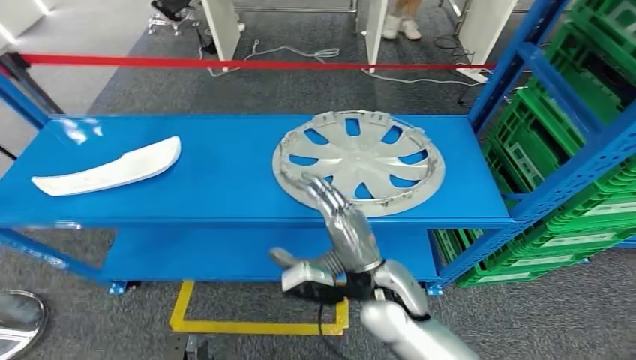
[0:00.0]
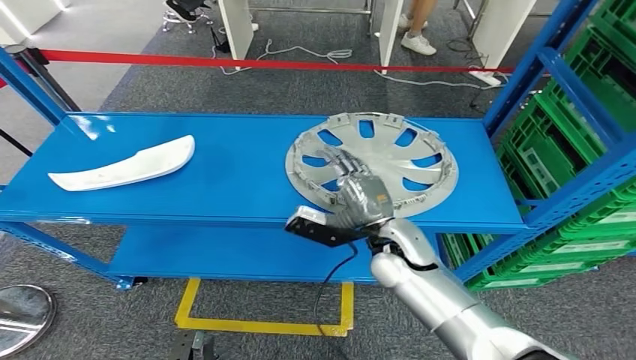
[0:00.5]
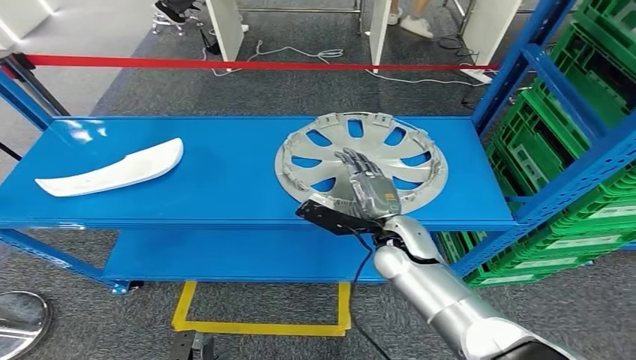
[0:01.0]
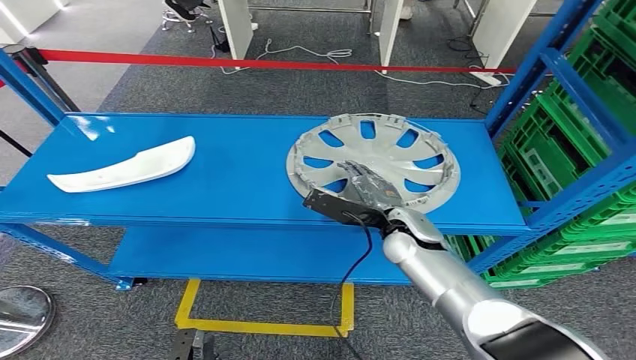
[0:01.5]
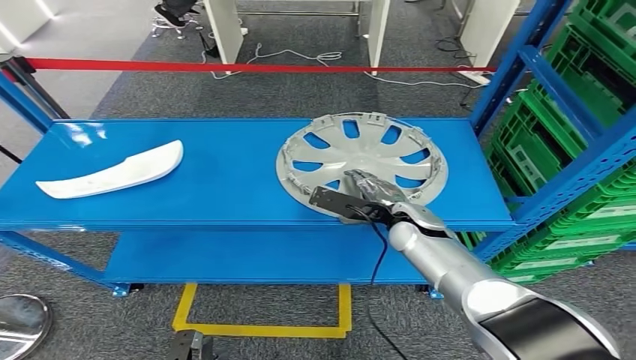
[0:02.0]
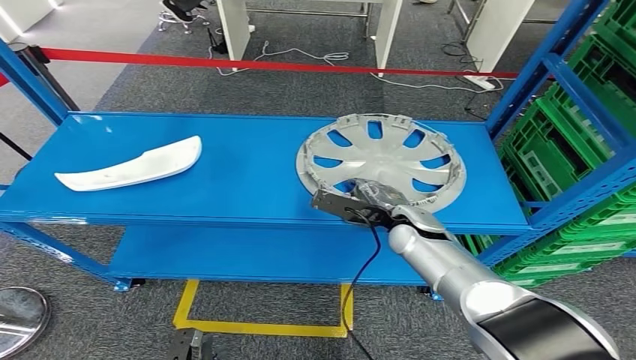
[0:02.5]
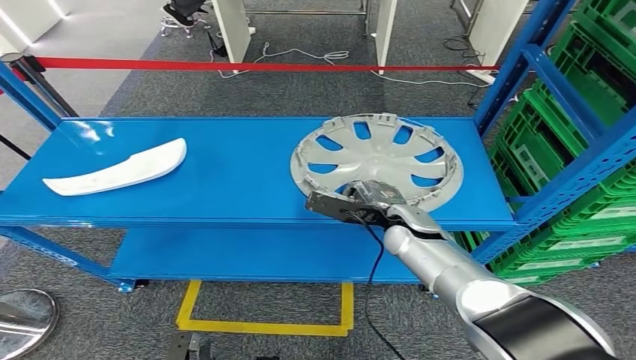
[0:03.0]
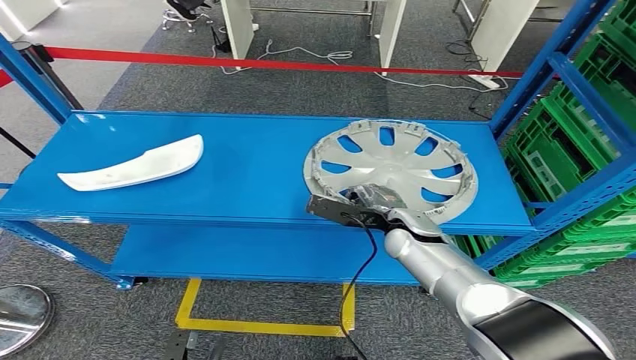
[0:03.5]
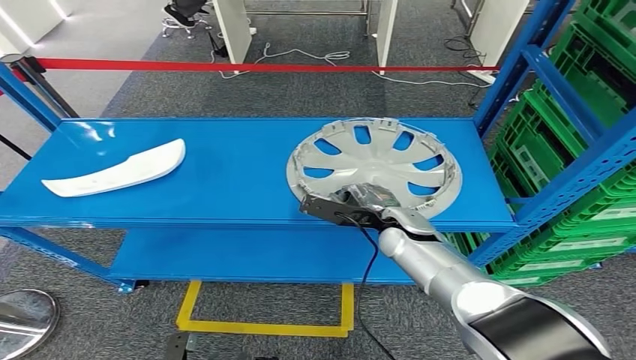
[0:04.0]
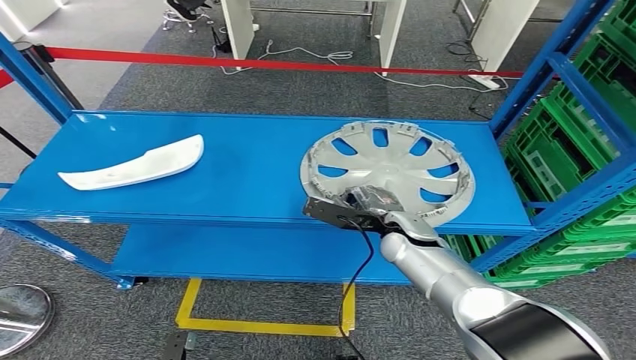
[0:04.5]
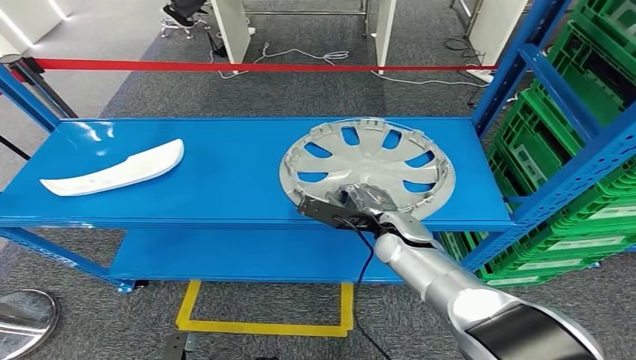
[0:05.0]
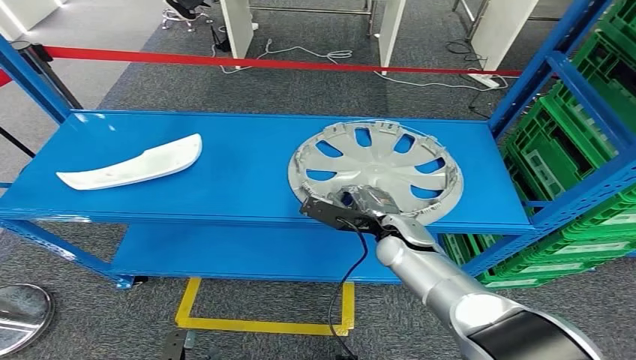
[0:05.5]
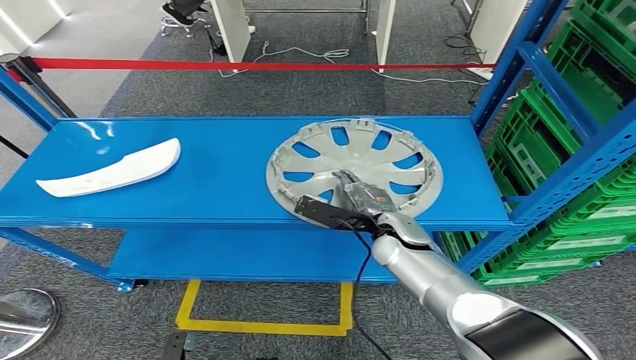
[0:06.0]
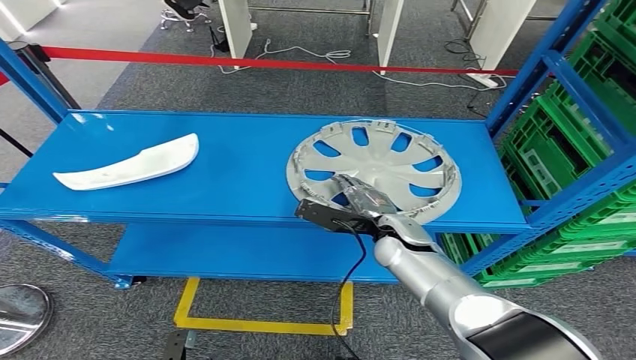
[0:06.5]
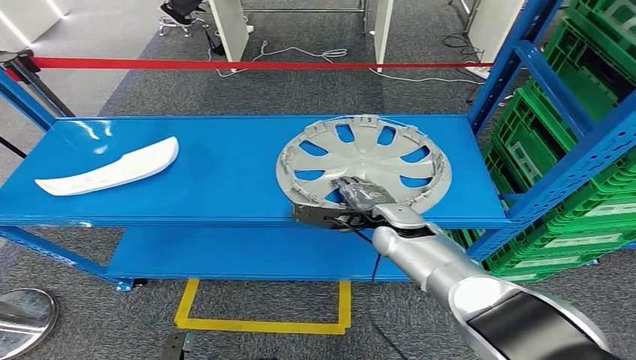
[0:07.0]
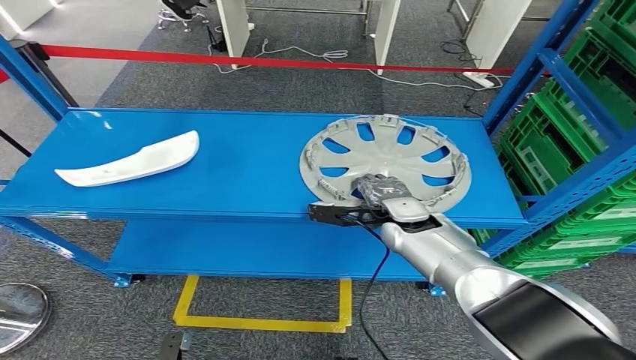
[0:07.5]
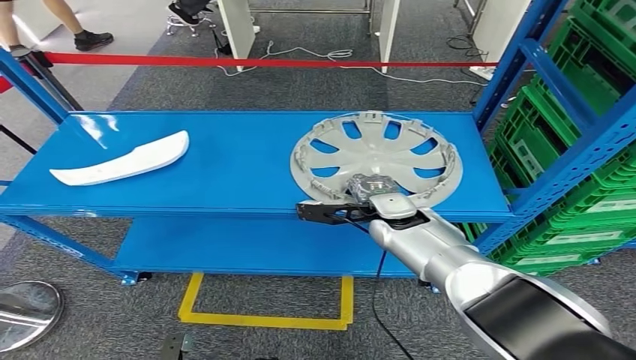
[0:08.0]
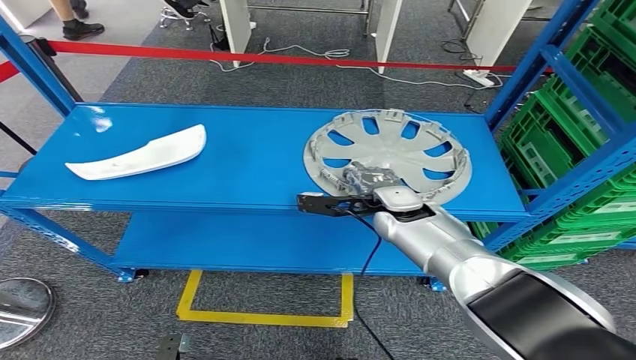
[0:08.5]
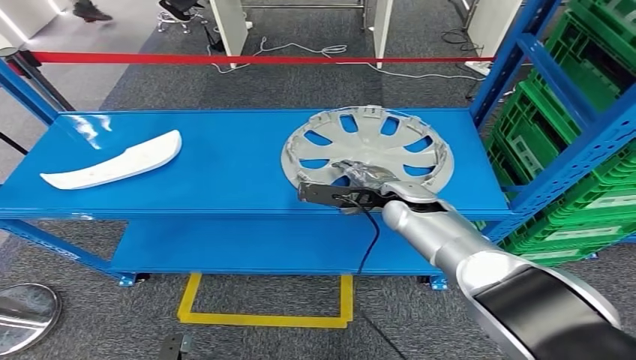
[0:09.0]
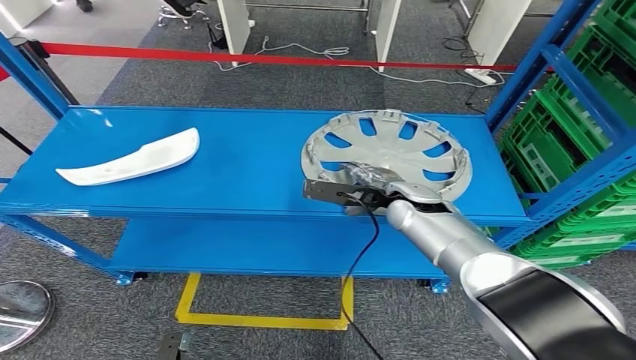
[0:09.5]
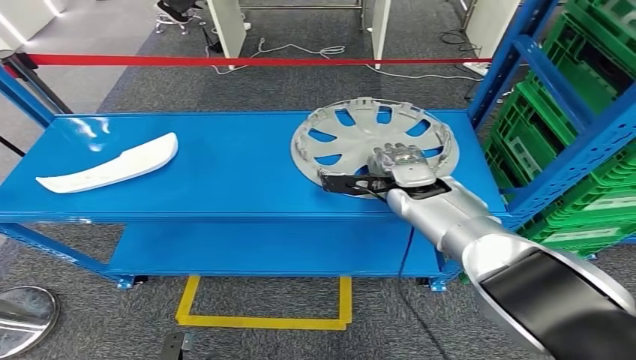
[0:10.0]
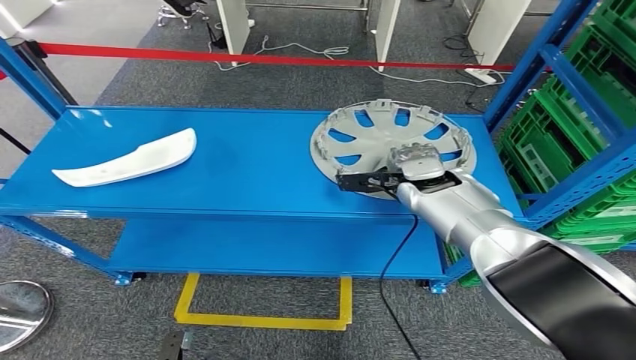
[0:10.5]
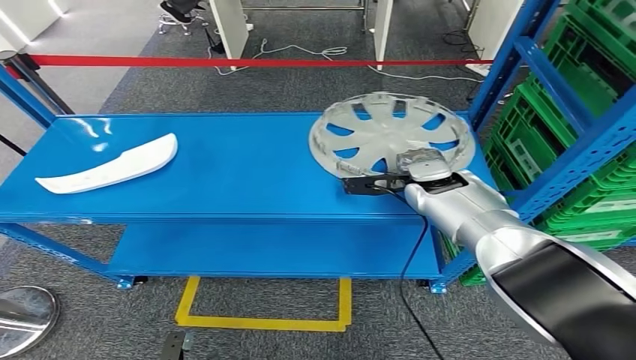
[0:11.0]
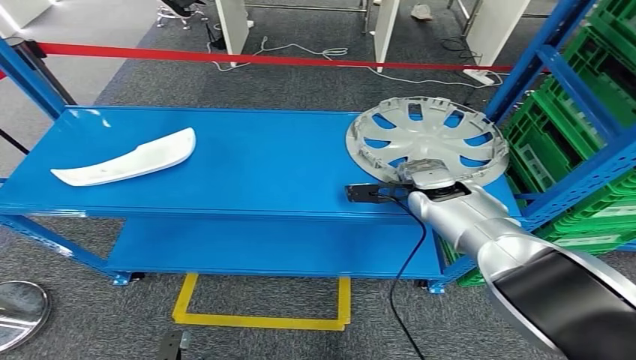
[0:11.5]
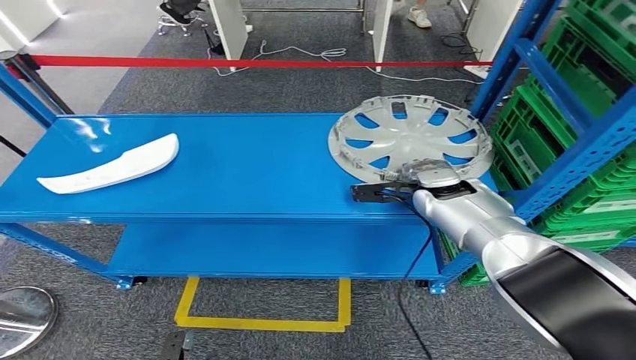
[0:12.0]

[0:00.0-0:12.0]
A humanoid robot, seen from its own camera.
0:04.0 to 0:06.0: There are only small adjustments of the hands.

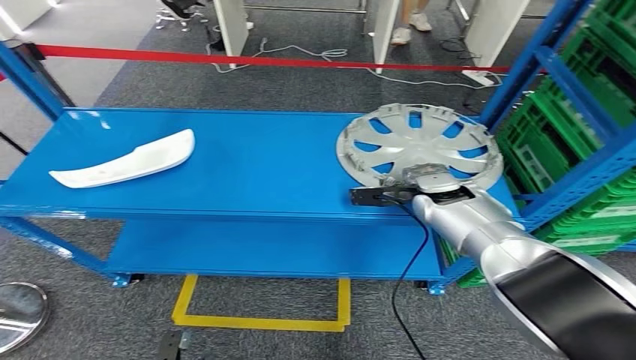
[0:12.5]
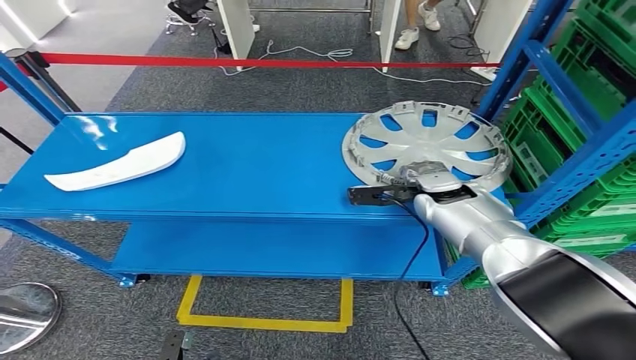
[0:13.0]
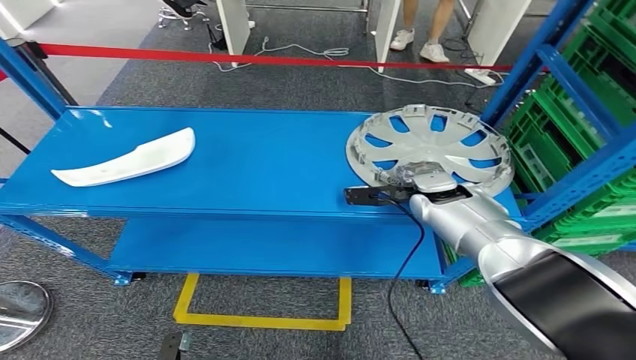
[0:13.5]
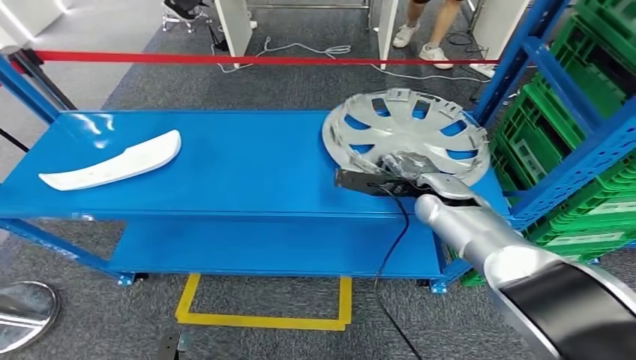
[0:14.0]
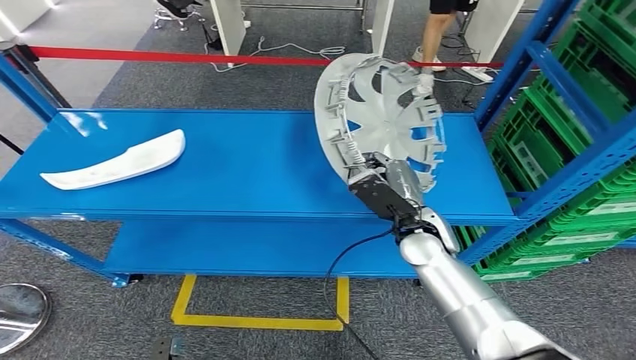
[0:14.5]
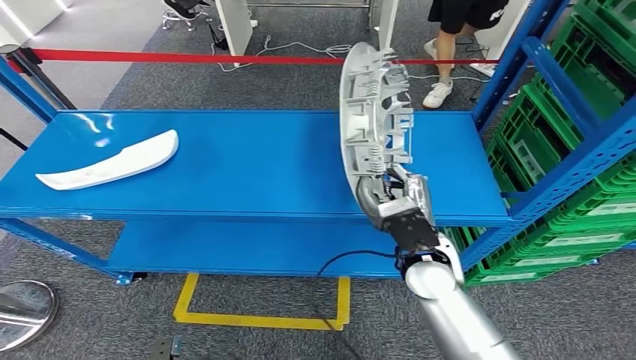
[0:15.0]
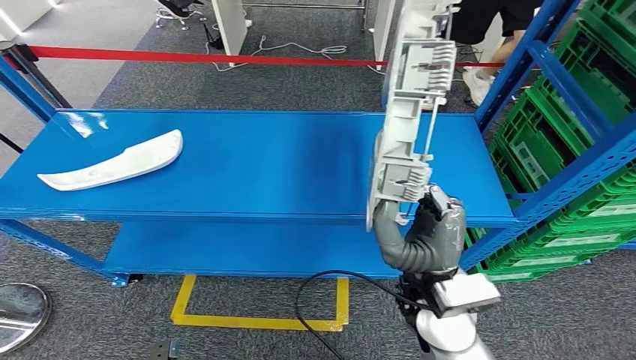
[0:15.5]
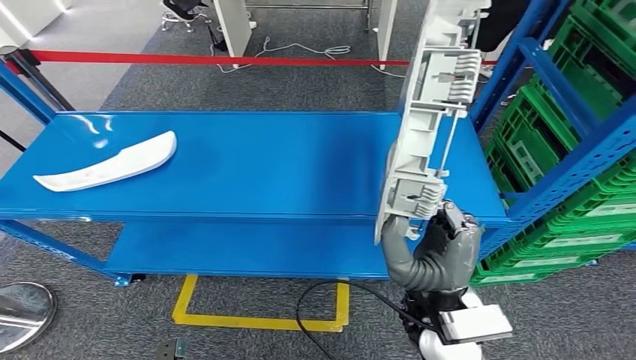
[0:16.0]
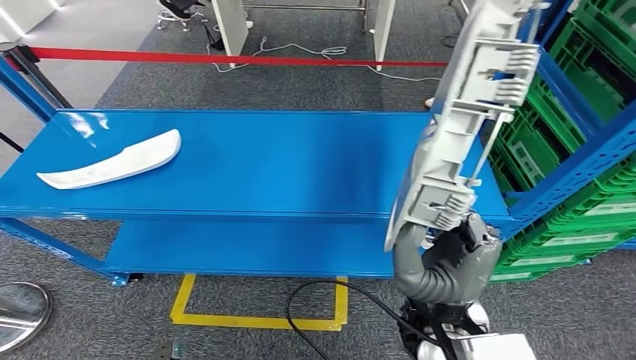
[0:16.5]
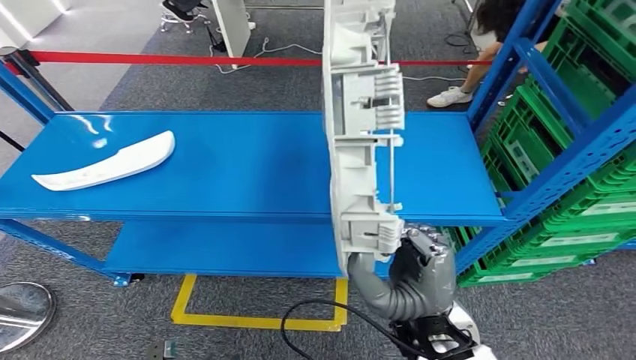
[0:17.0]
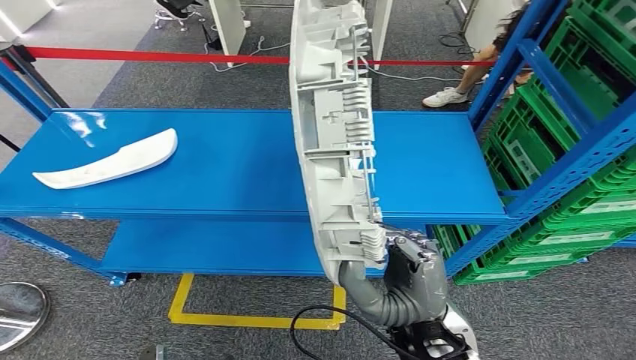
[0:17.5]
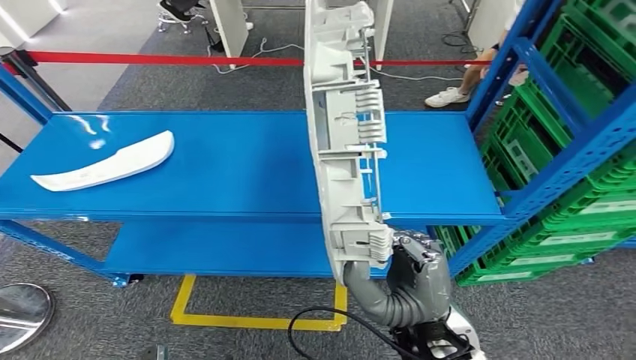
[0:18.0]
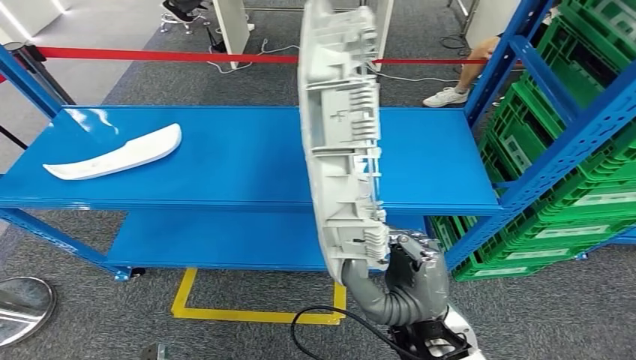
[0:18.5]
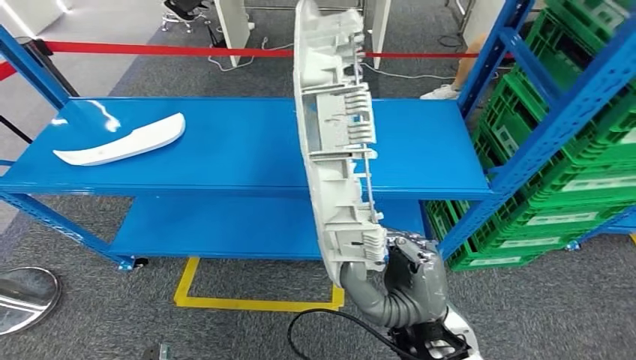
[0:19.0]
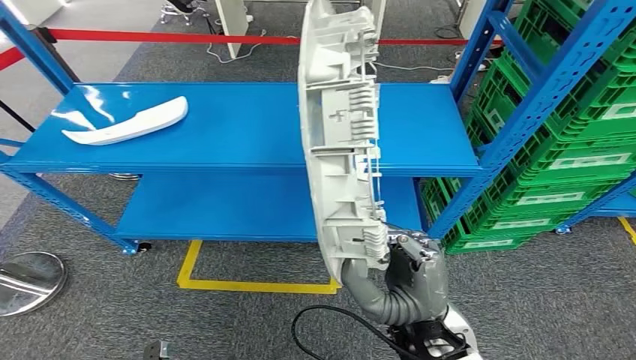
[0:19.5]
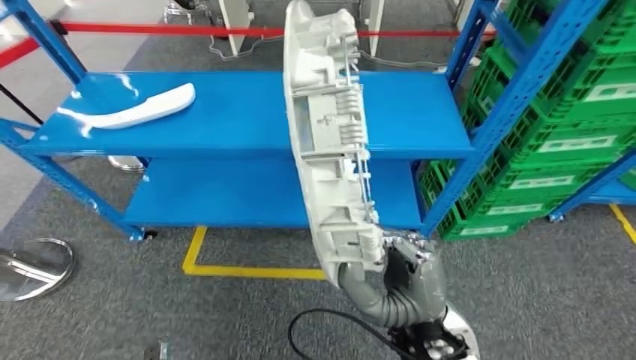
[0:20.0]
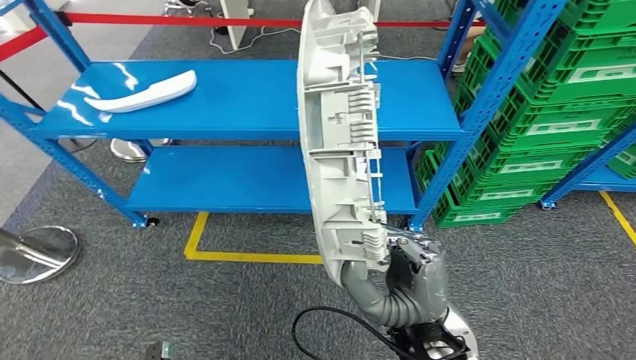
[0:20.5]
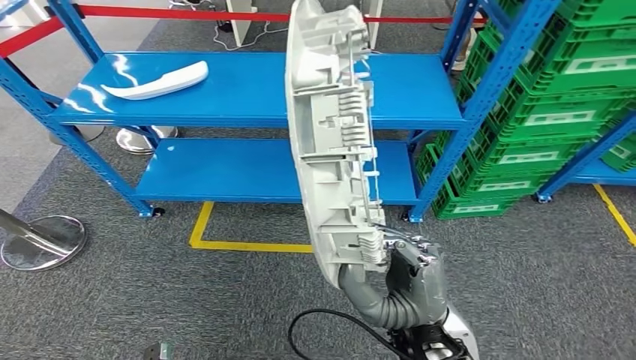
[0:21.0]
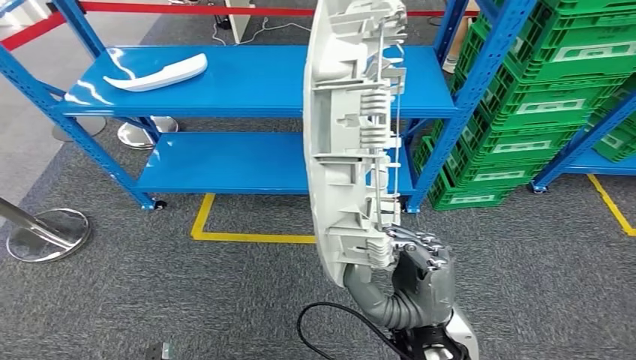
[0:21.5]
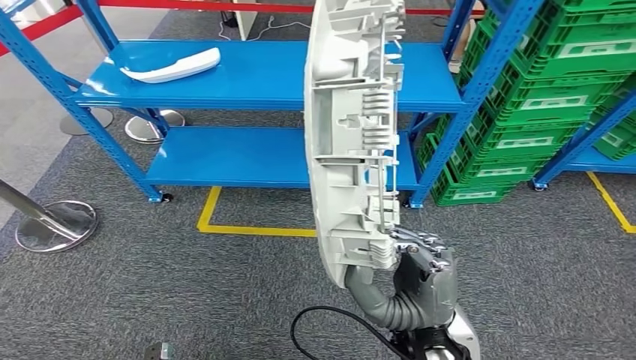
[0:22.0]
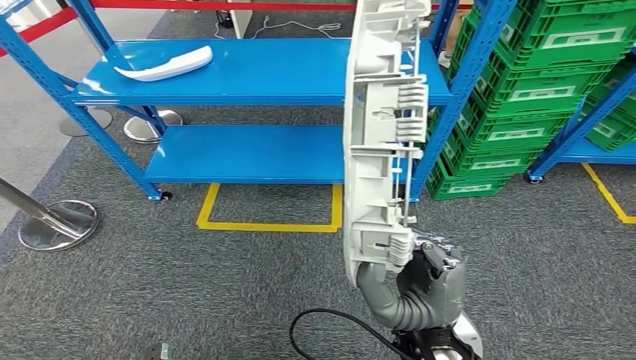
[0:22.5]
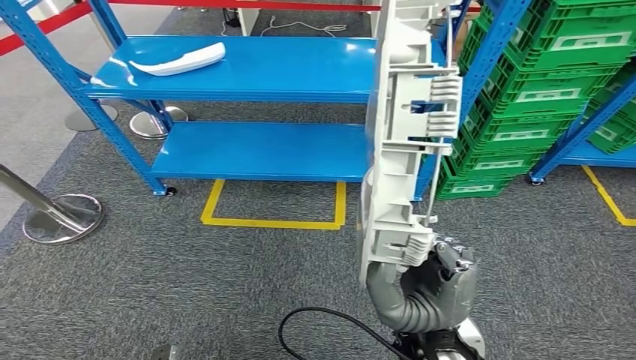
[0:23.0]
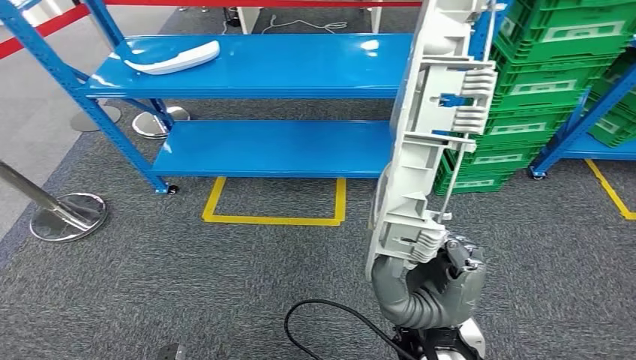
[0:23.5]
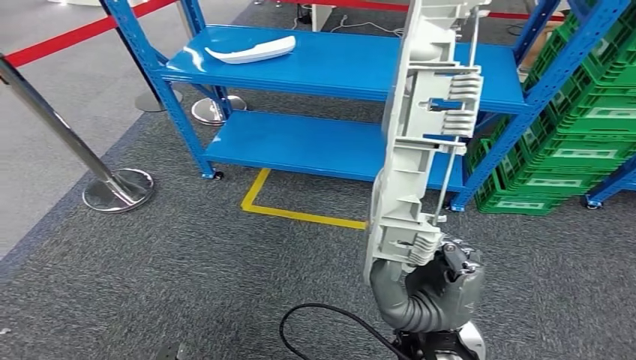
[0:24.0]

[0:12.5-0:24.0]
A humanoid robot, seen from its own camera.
Step, 0:12.5 to 0:15.5: Pick up the small component from the shelf.
